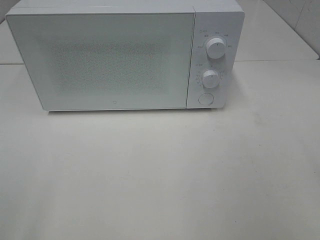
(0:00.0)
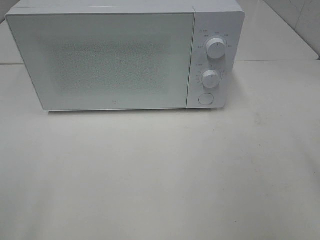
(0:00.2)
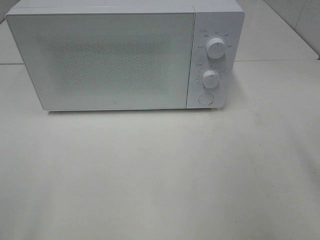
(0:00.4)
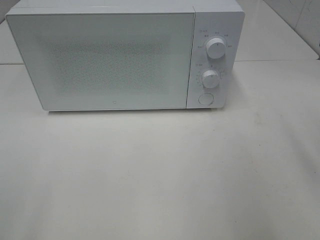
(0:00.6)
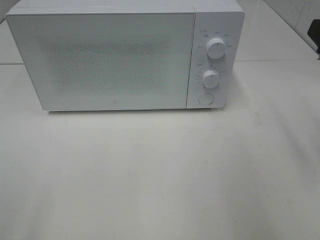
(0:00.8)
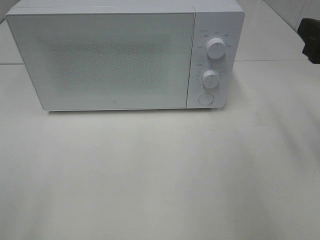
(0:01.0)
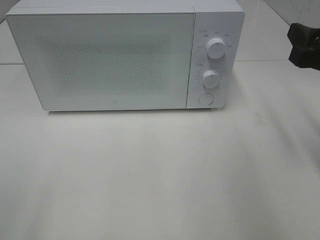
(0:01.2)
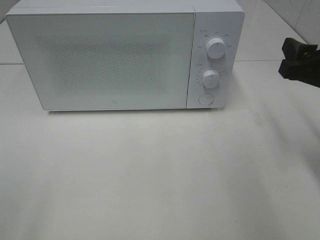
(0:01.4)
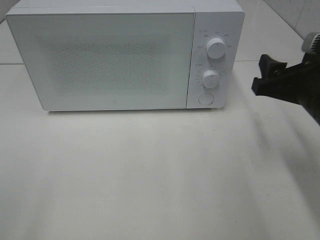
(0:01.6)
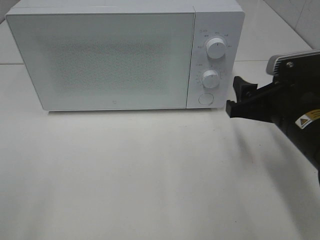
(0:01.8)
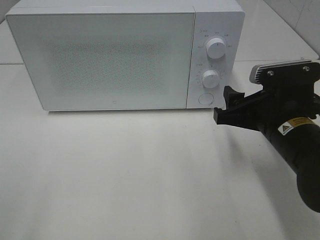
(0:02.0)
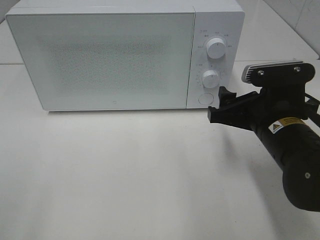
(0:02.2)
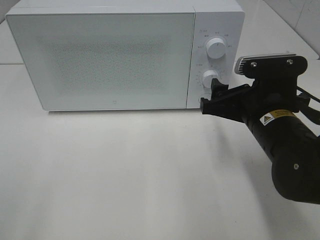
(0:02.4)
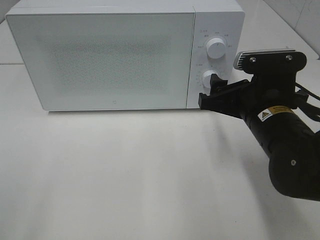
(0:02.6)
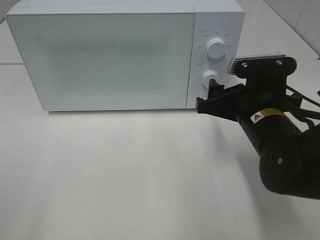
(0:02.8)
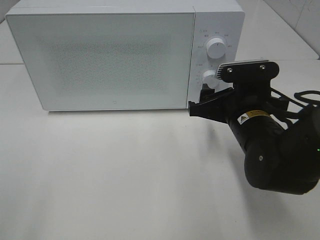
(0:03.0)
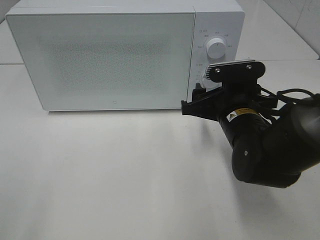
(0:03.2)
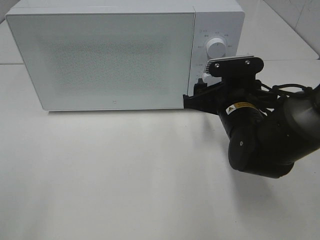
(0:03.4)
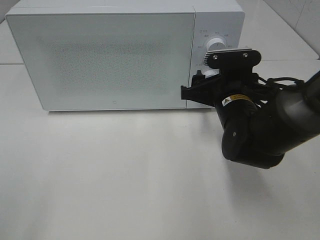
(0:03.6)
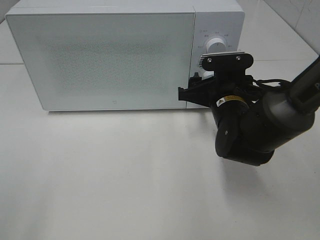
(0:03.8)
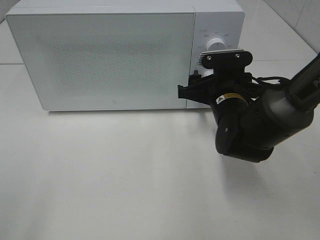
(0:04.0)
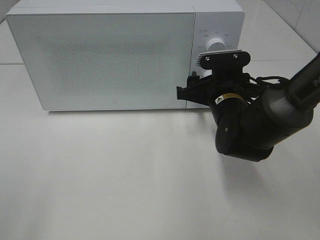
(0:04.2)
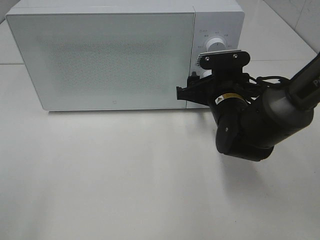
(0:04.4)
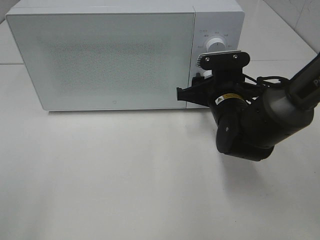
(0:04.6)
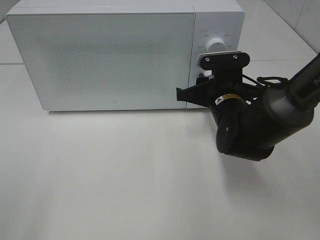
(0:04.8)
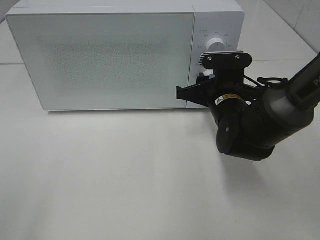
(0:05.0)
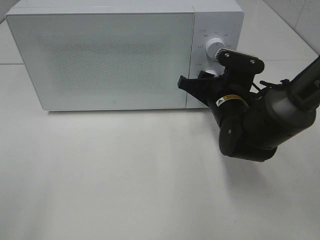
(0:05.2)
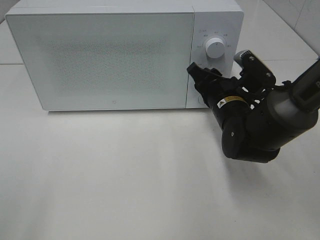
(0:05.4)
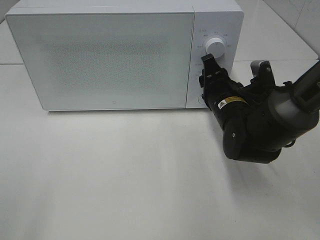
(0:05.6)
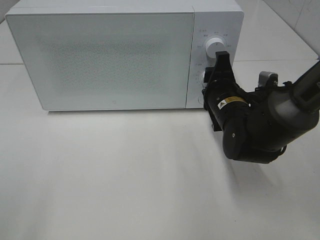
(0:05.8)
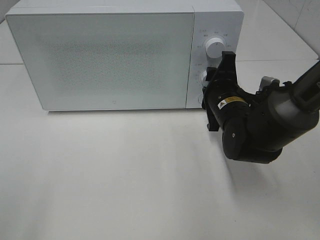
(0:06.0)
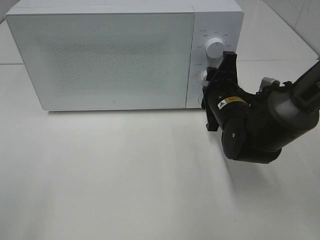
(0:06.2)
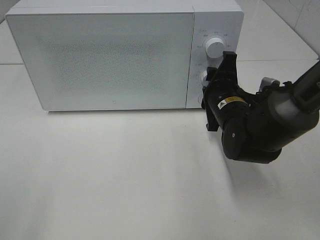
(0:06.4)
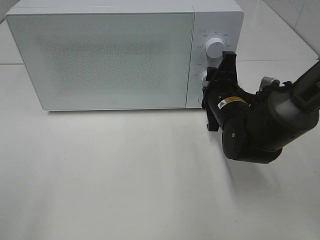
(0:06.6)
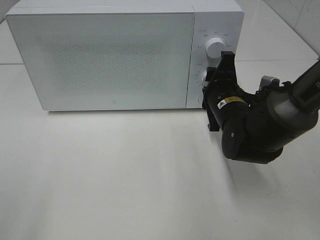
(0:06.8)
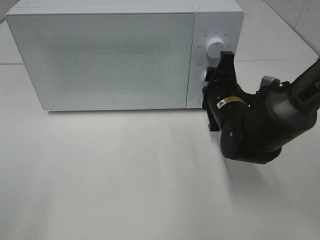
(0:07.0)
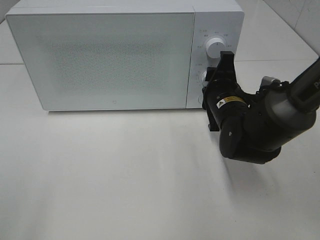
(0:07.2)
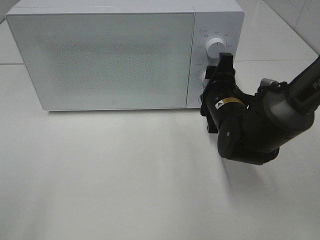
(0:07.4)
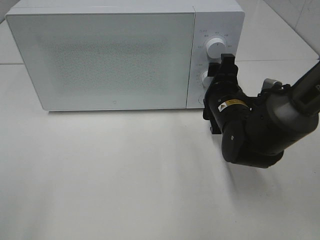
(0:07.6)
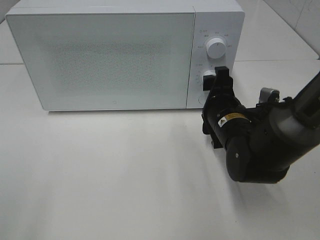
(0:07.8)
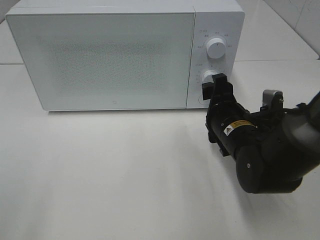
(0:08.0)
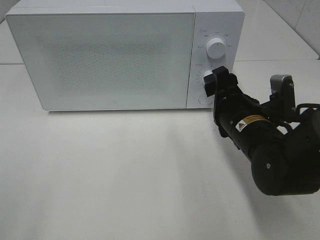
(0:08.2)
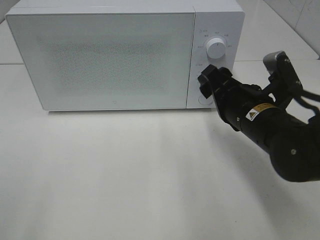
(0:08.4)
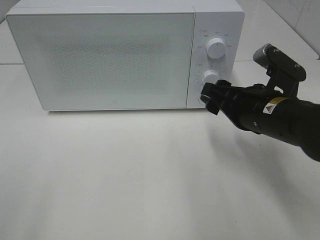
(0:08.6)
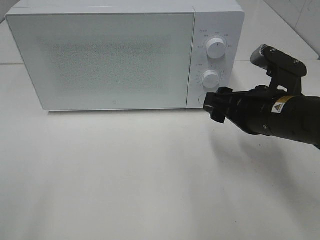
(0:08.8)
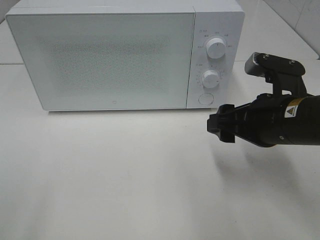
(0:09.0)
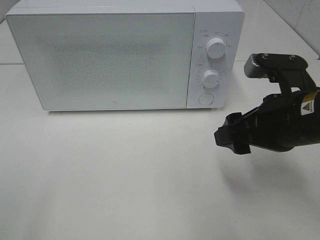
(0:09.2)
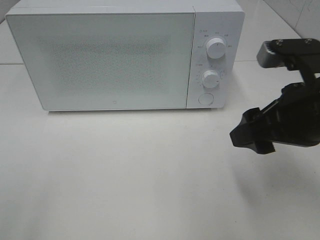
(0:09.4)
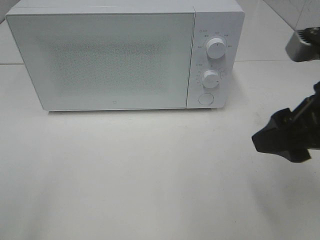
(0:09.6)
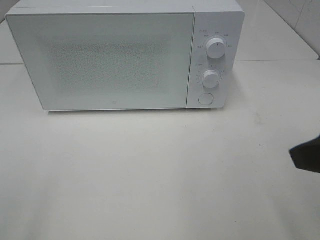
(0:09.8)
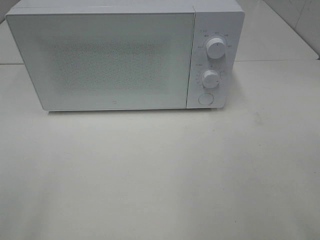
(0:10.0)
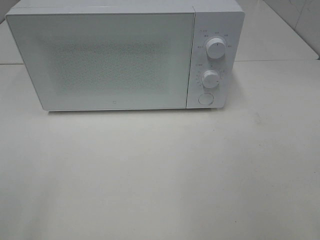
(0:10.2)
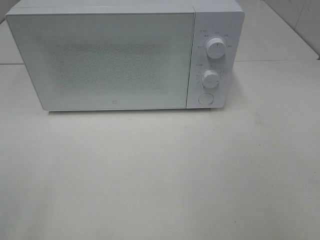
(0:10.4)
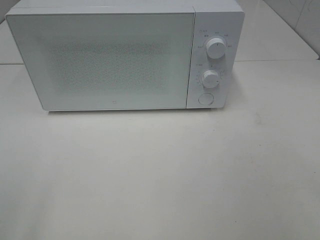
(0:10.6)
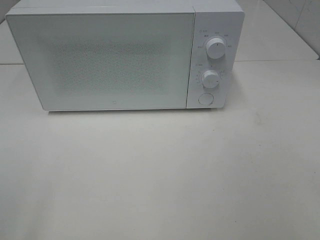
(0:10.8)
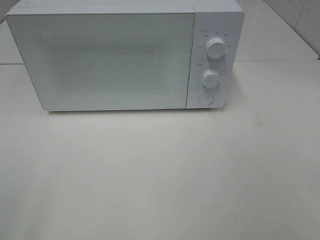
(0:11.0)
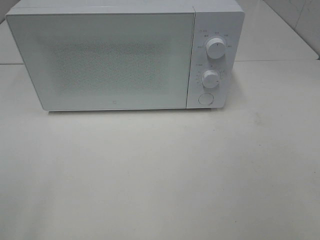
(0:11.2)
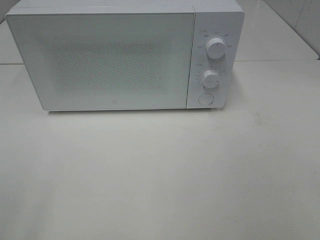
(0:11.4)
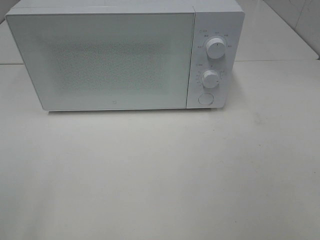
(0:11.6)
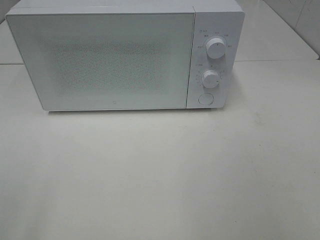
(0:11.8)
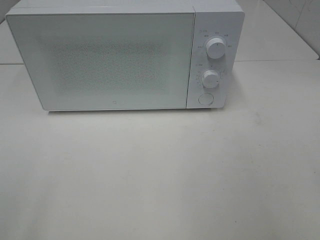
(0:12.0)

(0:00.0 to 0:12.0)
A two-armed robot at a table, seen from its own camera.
Task of the whole recording: Heat the burger.
Step, 0:00.0 - 0:07.4: Right hand: twist timer button.
0:00.0 - 0:01.6: The right gripper moves forward and downward, approximately 20 cm.
0:01.6 - 0:03.0: The right gripper moves to the left and downward, roughly 10 cm.
0:03.0 - 0:04.4: The right gripper moves forward, approximately 5 cm.
0:06.0 - 0:07.6: Both grippers stay put.
0:07.6 - 0:09.0: The right gripper heads backward and upward, covering roughly 10 cm.
0:09.0 - 0:10.4: The right gripper heads backward, upward and to the right, covering some 25 cm.

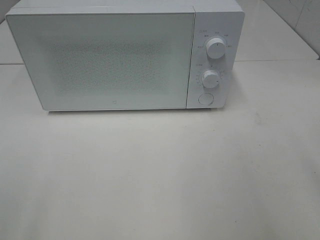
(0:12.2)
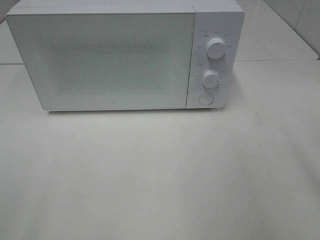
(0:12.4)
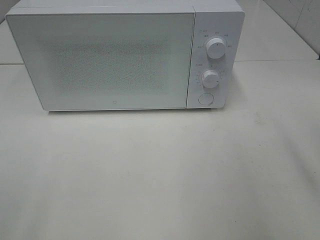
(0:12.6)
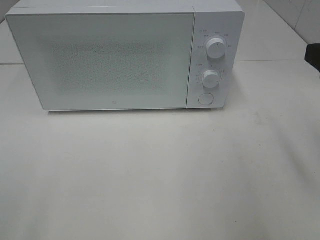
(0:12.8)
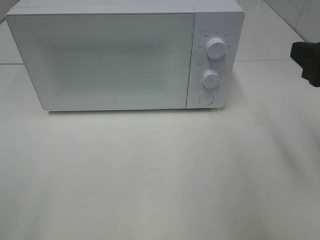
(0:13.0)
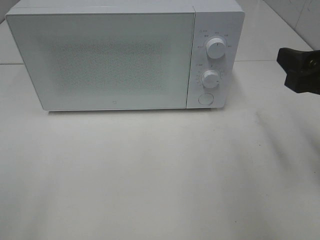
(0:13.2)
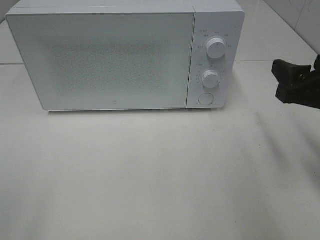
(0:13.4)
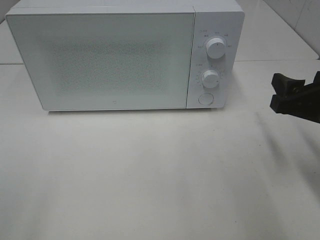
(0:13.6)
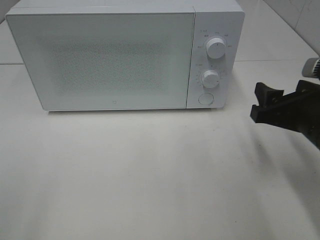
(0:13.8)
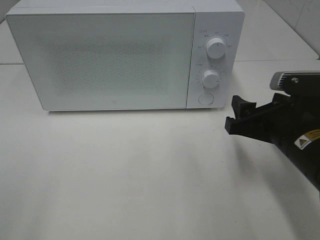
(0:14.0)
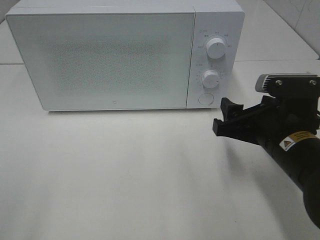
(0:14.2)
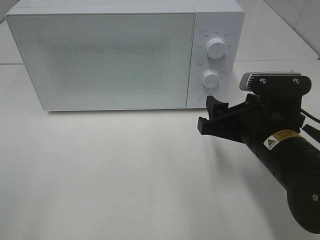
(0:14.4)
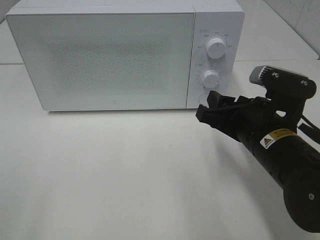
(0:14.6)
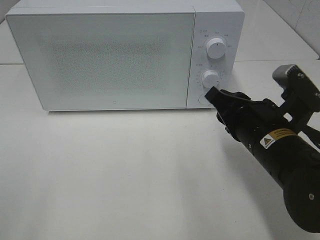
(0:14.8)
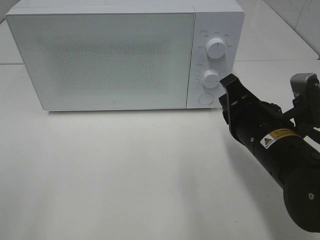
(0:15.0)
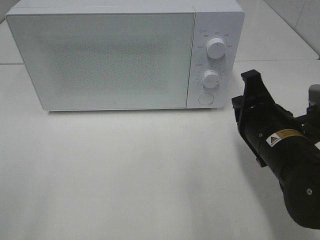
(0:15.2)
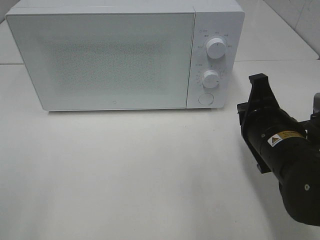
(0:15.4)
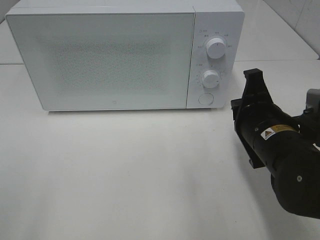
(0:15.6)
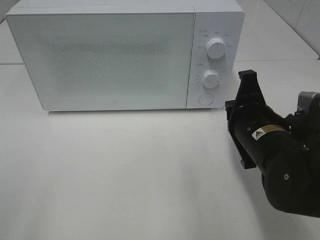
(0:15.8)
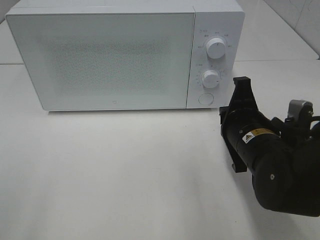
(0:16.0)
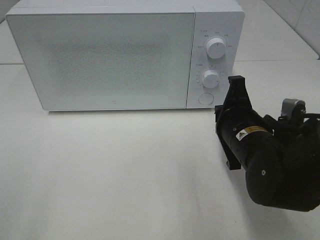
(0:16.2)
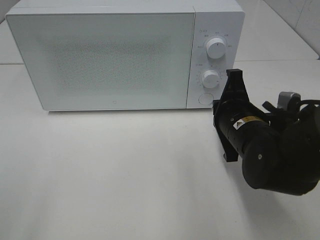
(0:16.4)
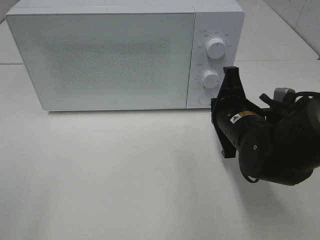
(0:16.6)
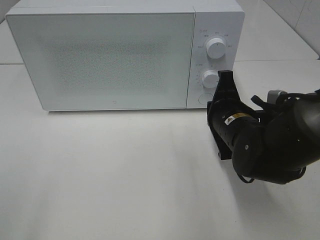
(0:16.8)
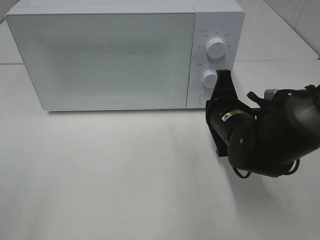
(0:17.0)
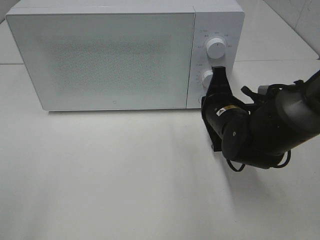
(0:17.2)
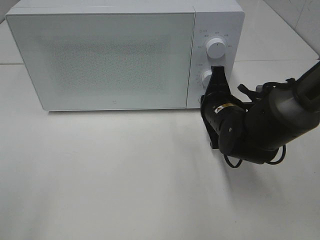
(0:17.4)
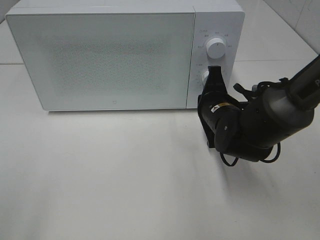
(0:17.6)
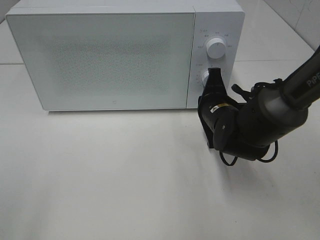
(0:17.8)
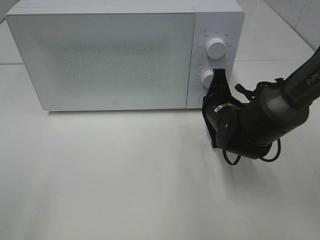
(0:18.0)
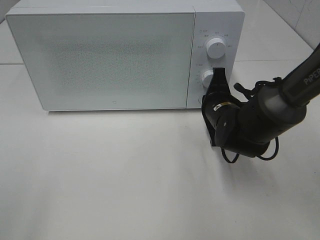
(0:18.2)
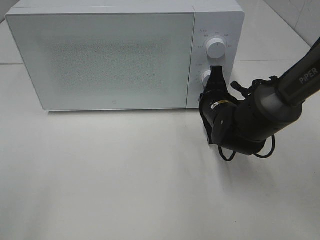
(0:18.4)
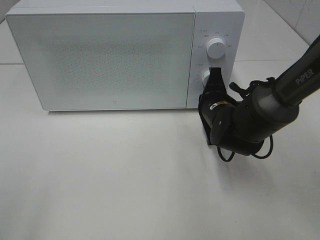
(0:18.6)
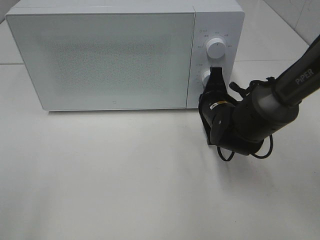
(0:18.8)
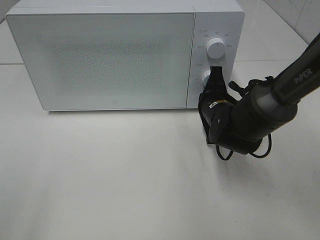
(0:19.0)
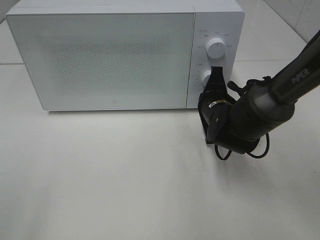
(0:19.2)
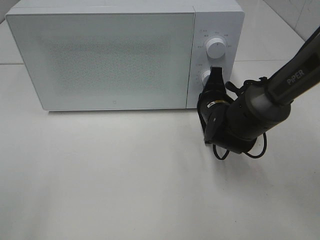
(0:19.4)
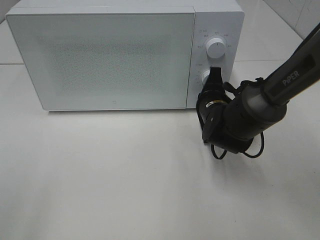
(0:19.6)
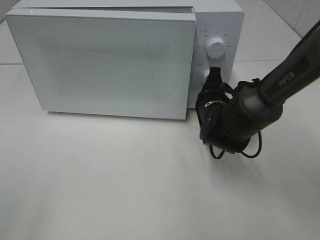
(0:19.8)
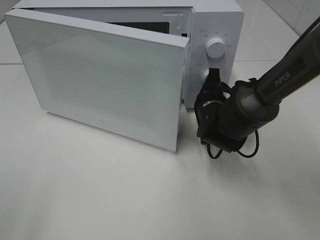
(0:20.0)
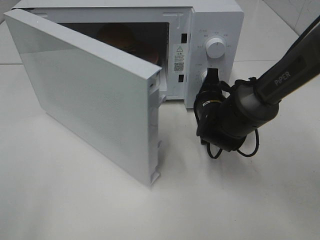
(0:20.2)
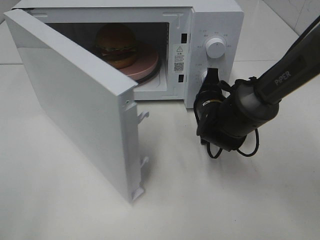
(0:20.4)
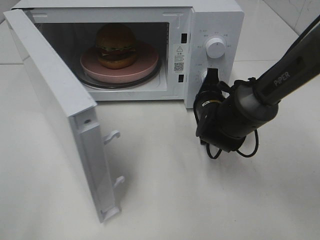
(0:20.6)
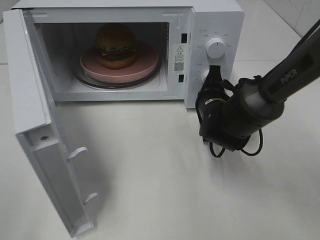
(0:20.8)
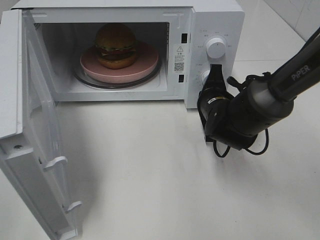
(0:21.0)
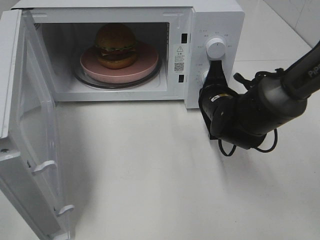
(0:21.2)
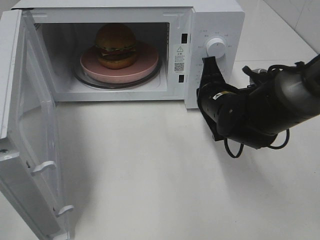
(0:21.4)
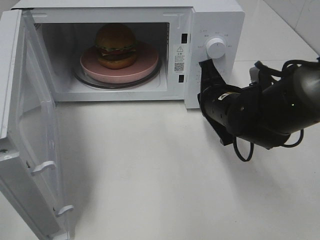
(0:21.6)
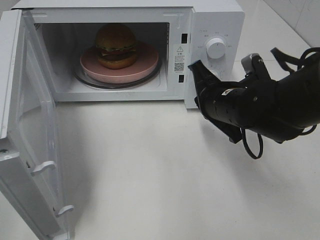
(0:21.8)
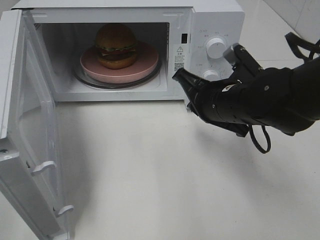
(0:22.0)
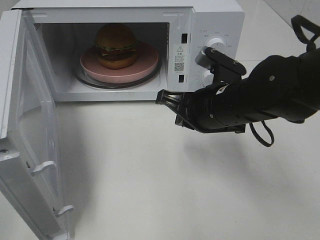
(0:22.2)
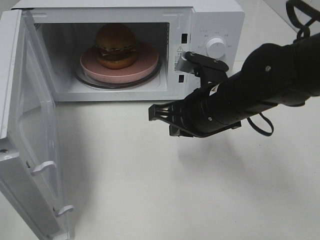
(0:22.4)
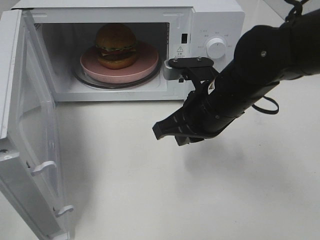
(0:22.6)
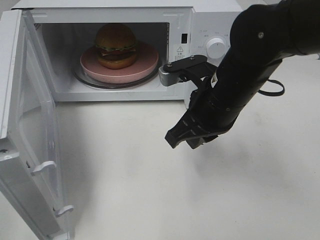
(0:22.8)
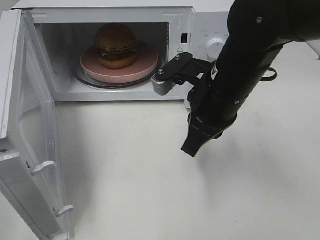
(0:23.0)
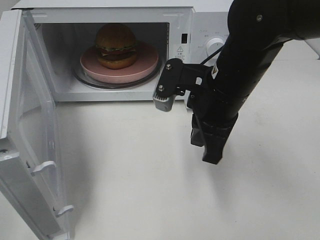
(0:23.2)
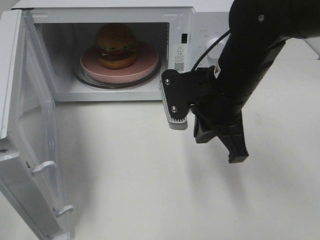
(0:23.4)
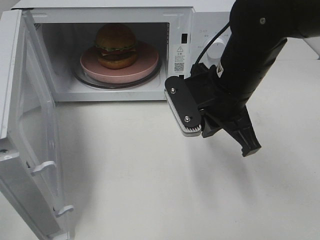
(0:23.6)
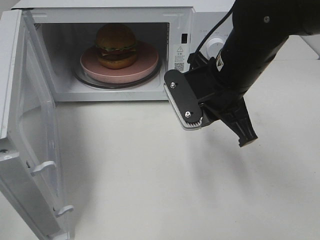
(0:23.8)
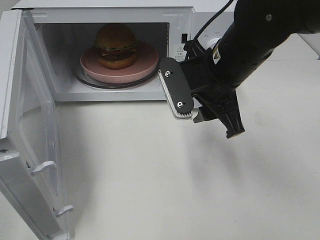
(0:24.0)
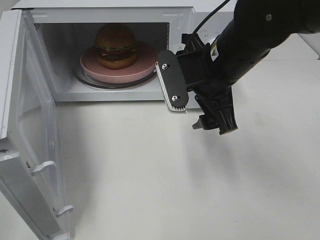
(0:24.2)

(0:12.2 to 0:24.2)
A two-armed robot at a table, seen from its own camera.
Task of the whole recording: Heat the burger.
Step, 0:12.2 - 0:21.2: Right hand: press the switch.
0:12.2 - 0:13.8: The right gripper travels downward and forward by about 20 cm.
0:13.8 - 0:15.2: The right gripper moves to the left, approximately 5 cm, and closes its fingers.
0:15.2 - 0:16.6: The right gripper is displaced forward by about 5 cm.
0:16.6 - 0:18.2: The right gripper heads forward, covering approximately 5 cm.
0:18.2 - 0:19.8: The grippers stay close to where they were, moving slightly.
0:21.2 - 0:22.6: The right gripper is displaced upward and backward by some 10 cm.
0:22.6 - 0:24.2: The right gripper changes place by some 5 cm, and opens up.
